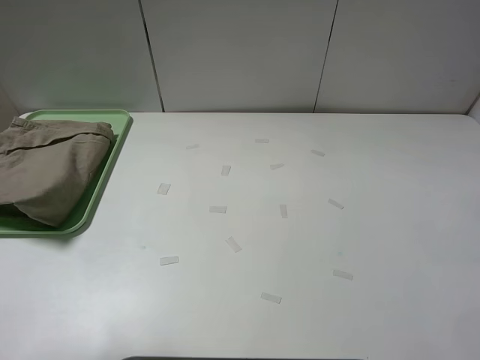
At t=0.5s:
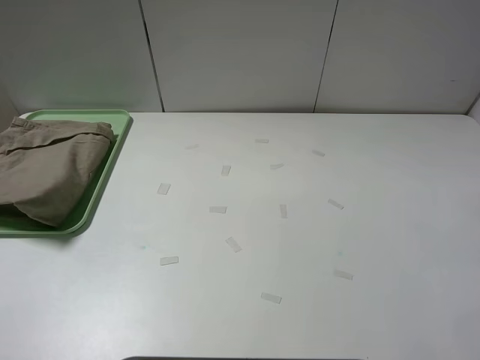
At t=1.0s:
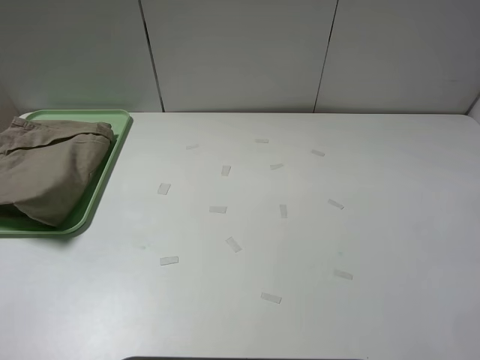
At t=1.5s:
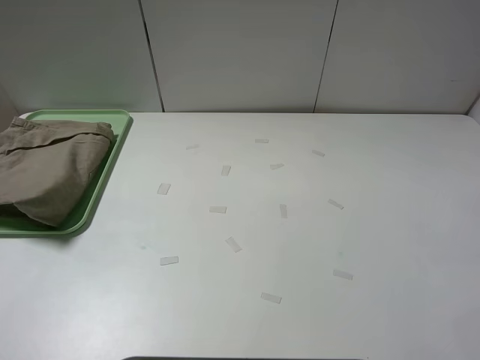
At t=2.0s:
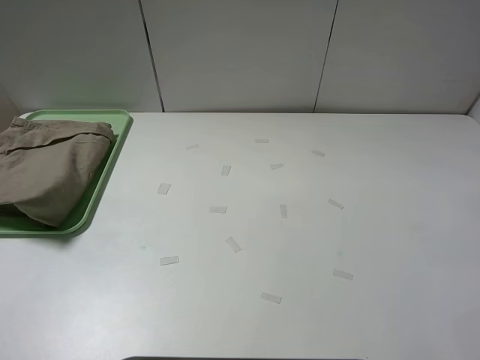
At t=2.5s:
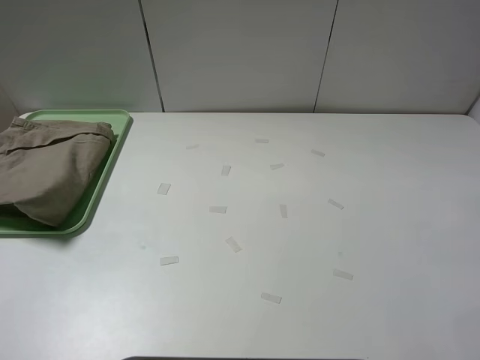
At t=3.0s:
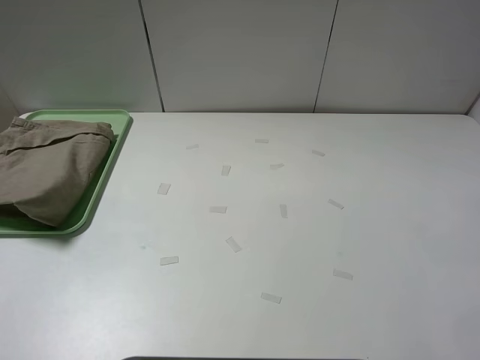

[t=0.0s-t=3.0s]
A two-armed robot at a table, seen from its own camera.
Task of the whole recording: fold the khaki jeans in half with two grippers, then fold them in half again, and use the left claw to place the folded fold khaki jeans on the tray.
t=0.0s to t=1.5s: The left gripper travels downward and backward by about 10 cm.

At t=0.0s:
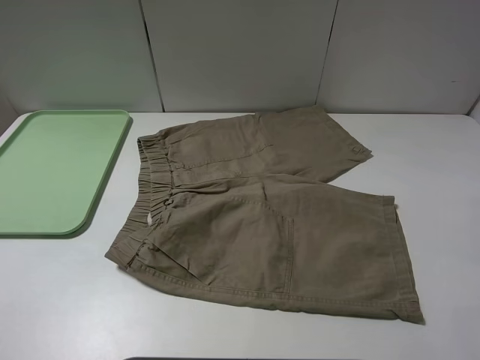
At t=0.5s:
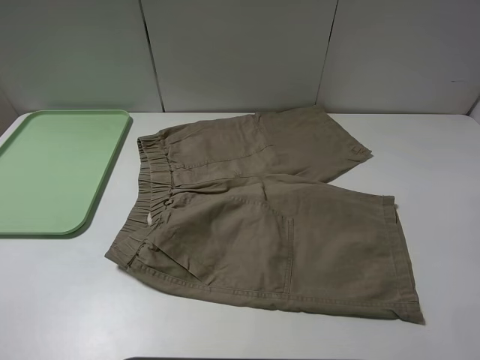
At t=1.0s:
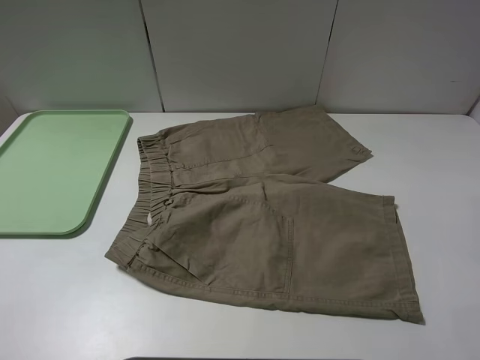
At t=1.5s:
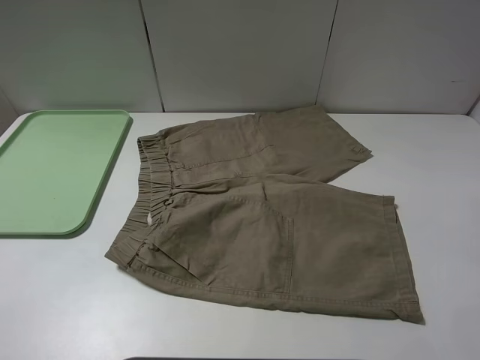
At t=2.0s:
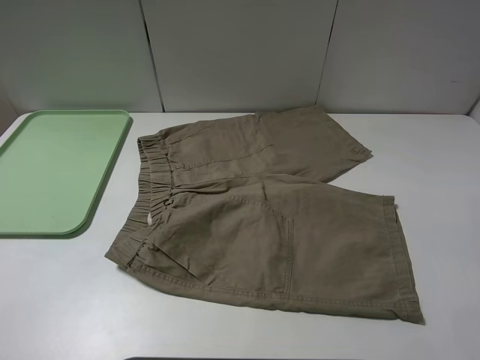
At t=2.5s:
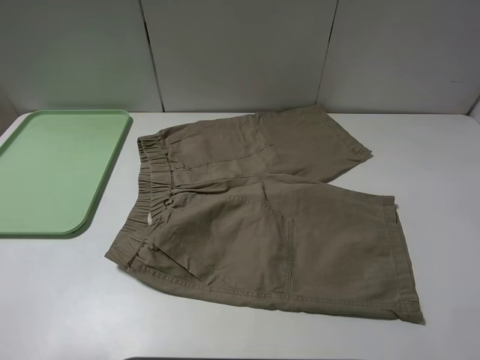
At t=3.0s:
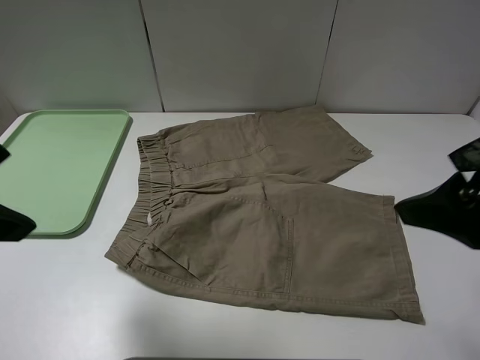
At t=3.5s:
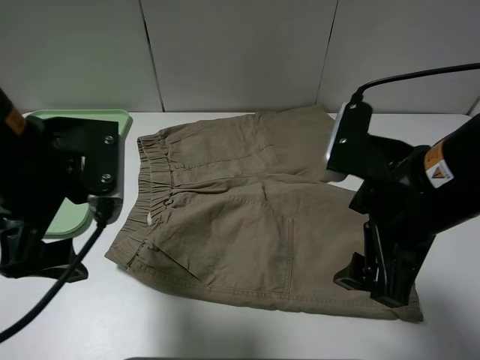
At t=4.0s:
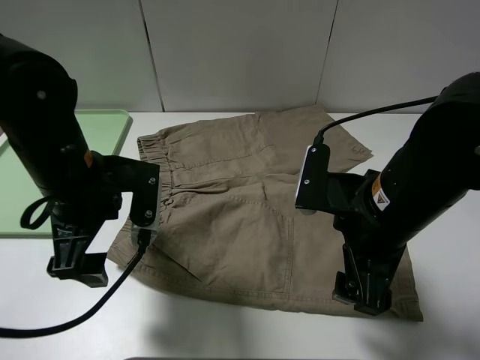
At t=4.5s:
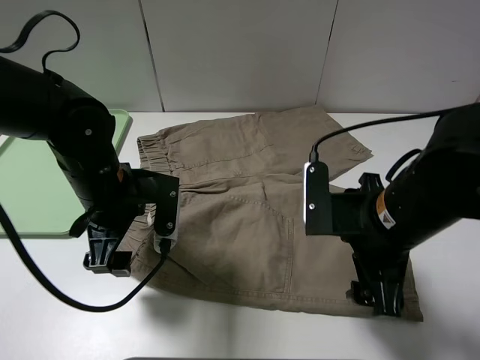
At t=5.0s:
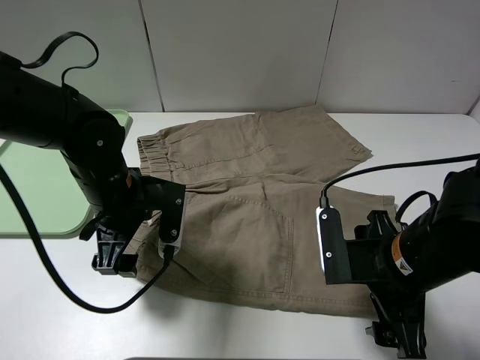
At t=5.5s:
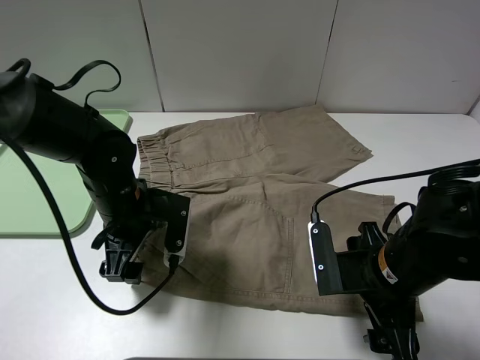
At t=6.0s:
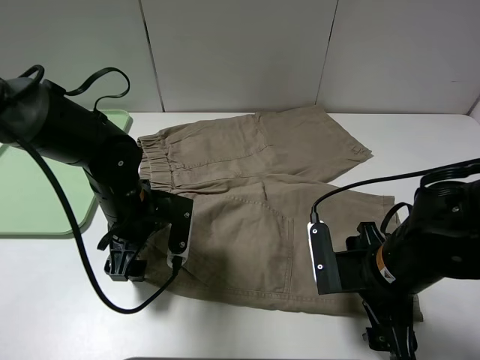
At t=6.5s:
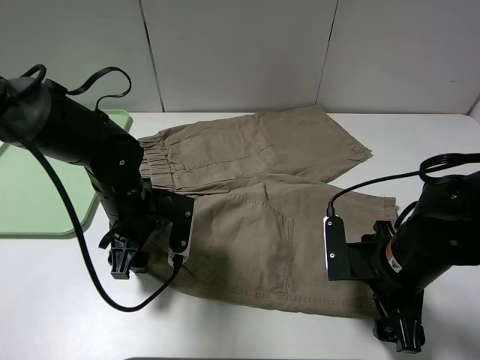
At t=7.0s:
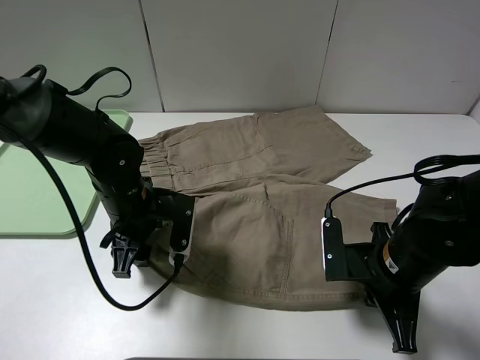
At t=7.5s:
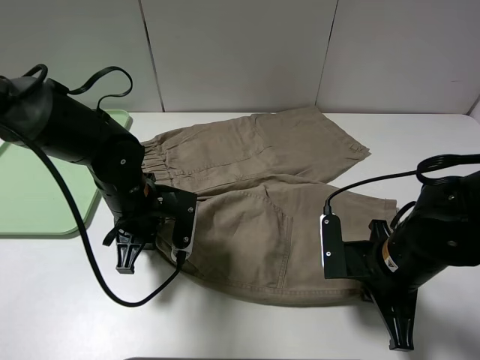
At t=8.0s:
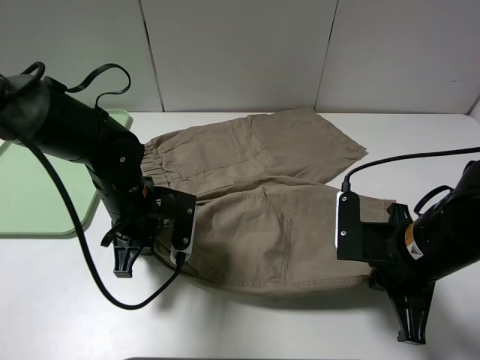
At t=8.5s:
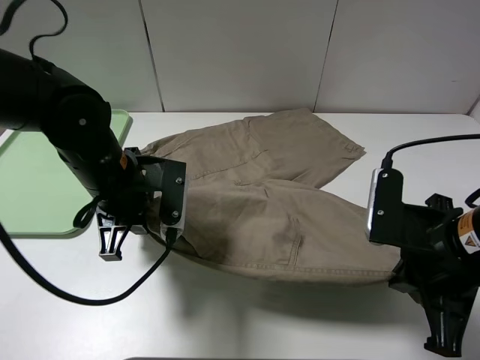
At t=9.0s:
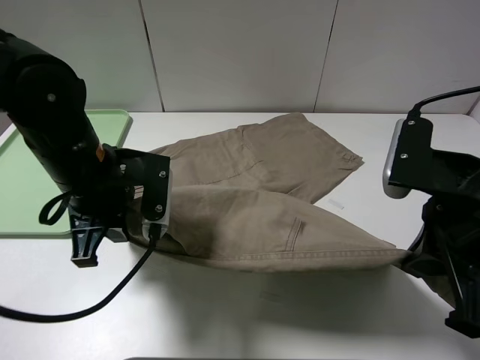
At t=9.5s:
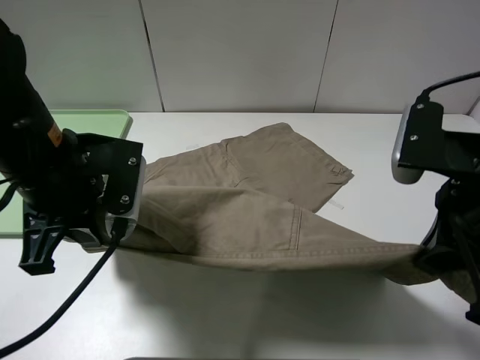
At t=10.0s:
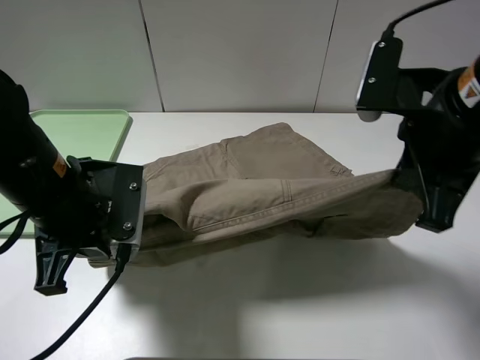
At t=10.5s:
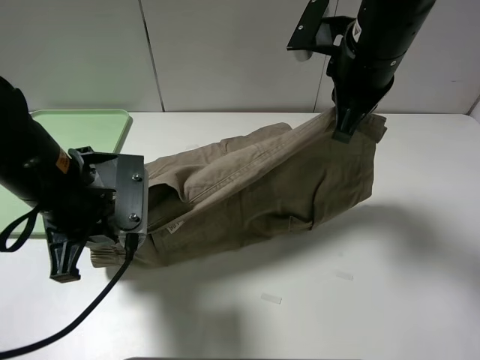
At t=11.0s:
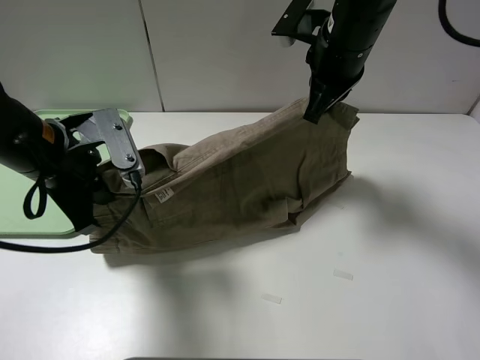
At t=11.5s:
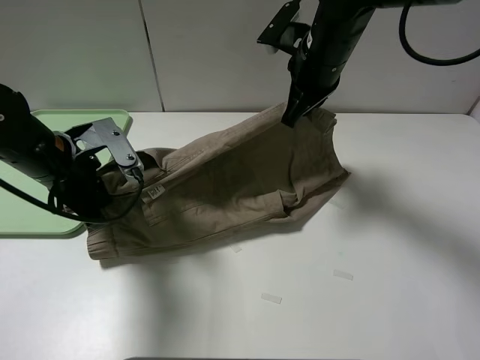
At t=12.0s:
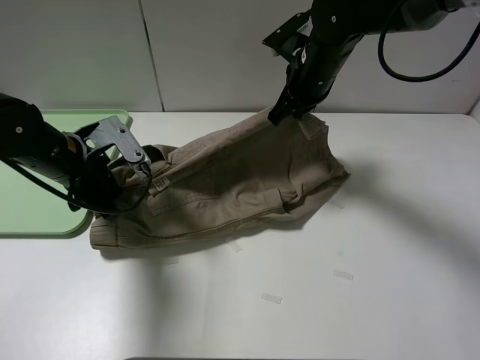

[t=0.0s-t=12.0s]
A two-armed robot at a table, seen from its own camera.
Task of the whole recording: fold the khaki jeans in half with two grippers, then fold them in half again, and use the left claw to place the folded fold khaki jeans on the tray.
Step, t=0.0s to t=7.0s: Grasp the khaki trousers with the left gripper.
t=2.0s to t=4.0s: The right gripper shifts roughly 25 cm forward, to the left and downward. Meanwhile the left gripper moves forward and to the right, roughly 25 cm.
t=4.0s to t=6.0s: Both grippers move downward, about 10 cm.
t=6.0s to t=8.0s: The right gripper closes its fingers. The left gripper closes up.
t=8.0s to t=10.0s: The left gripper goes approximately 10 cm upward and backward. Meanwhile the right gripper is displaced upward by some 15 cm.
t=10.0s to t=12.0s: The left gripper goes about 10 cm forward; the right gripper is displaced forward by some 20 cm.

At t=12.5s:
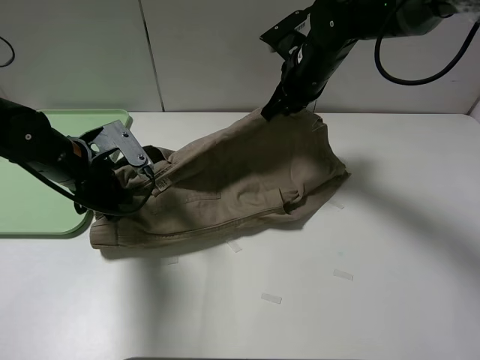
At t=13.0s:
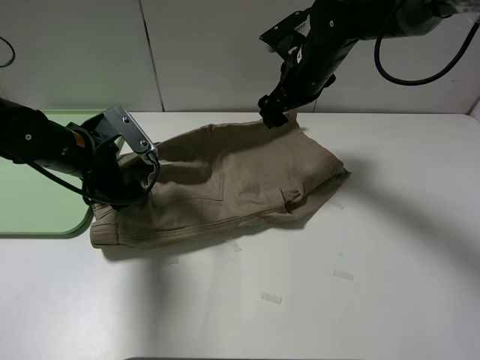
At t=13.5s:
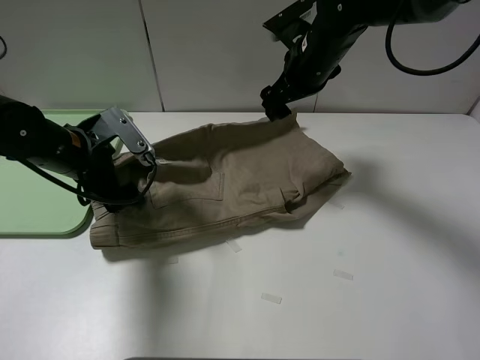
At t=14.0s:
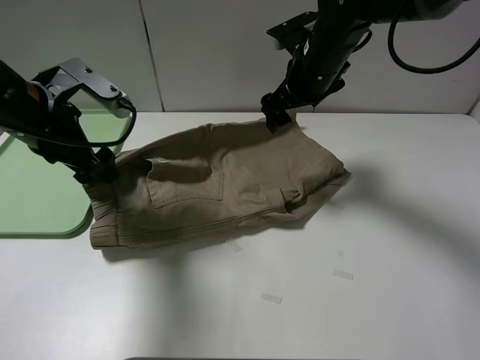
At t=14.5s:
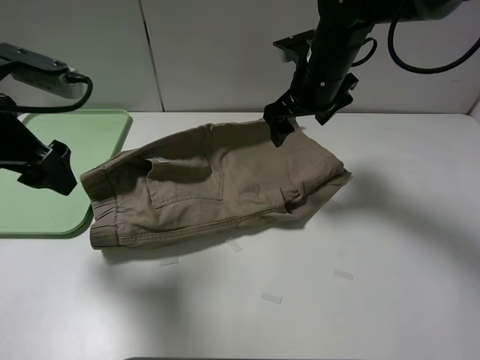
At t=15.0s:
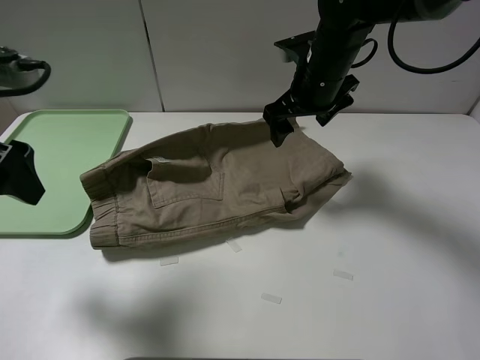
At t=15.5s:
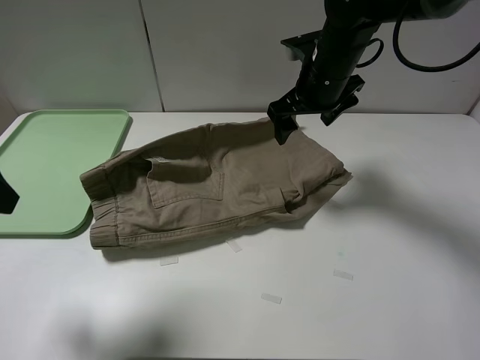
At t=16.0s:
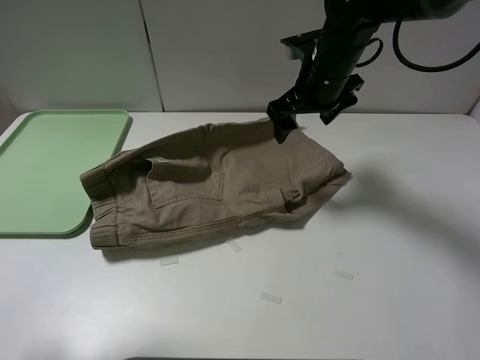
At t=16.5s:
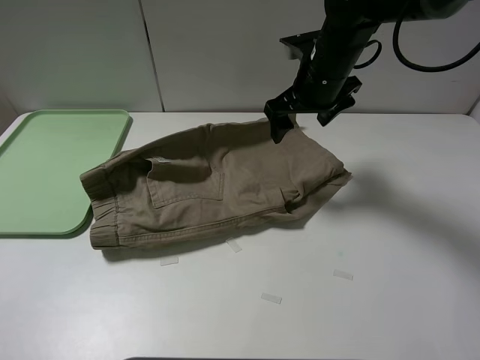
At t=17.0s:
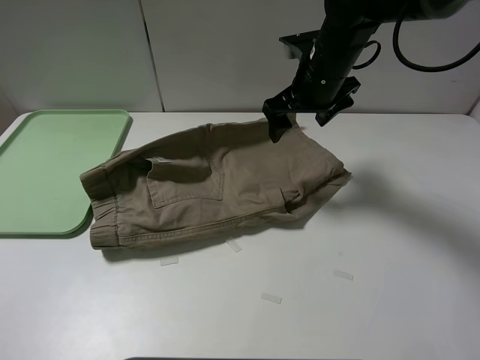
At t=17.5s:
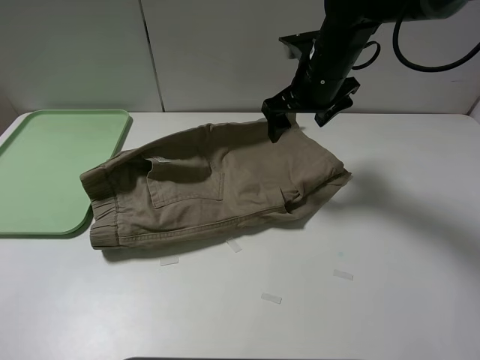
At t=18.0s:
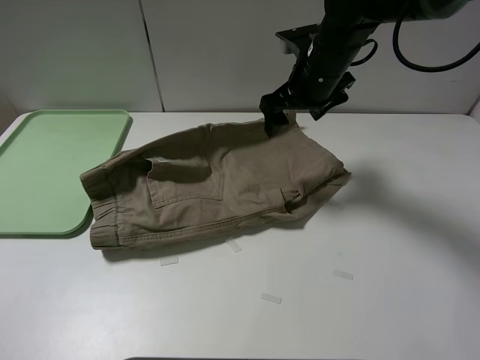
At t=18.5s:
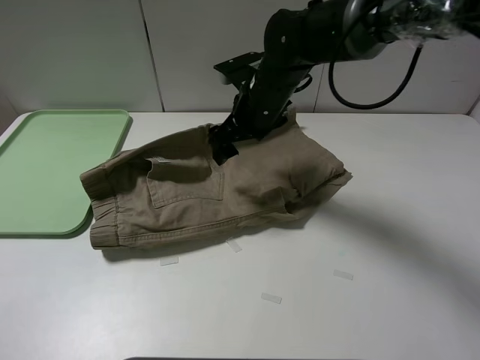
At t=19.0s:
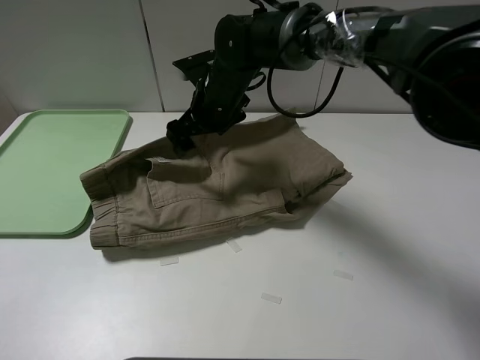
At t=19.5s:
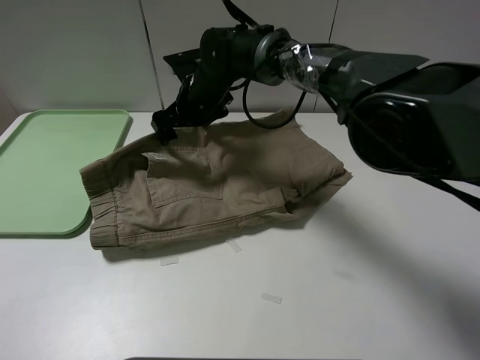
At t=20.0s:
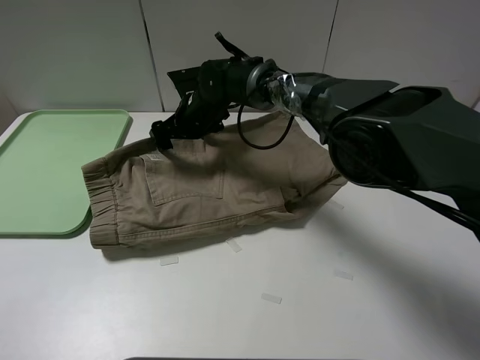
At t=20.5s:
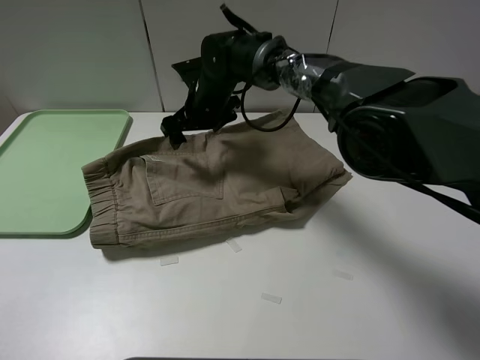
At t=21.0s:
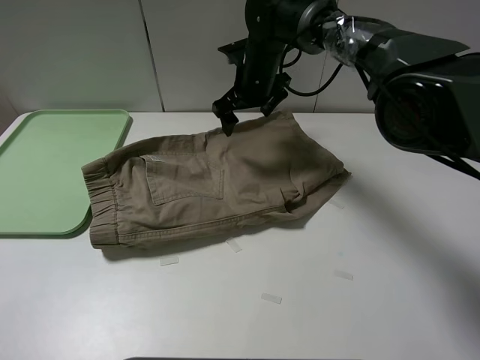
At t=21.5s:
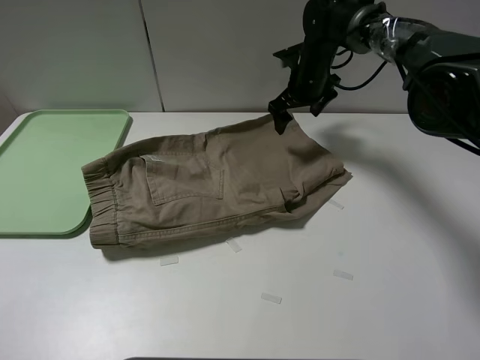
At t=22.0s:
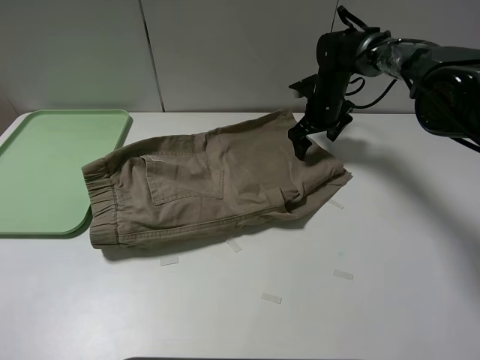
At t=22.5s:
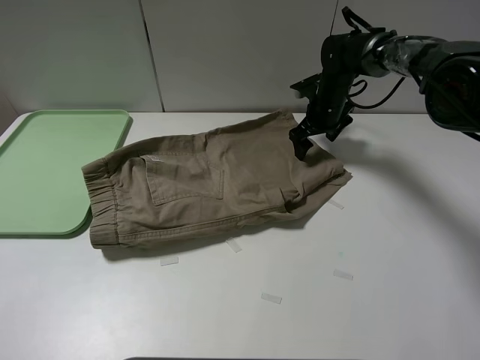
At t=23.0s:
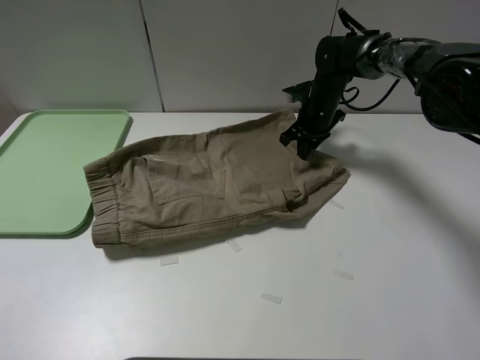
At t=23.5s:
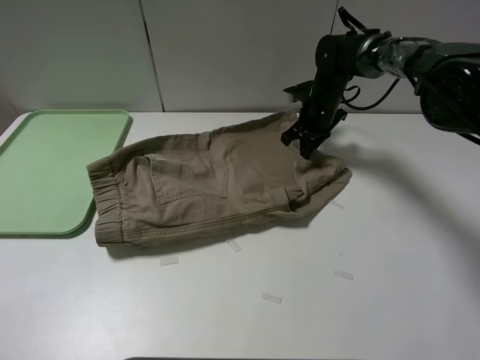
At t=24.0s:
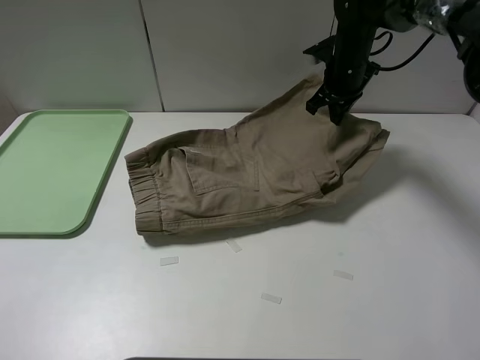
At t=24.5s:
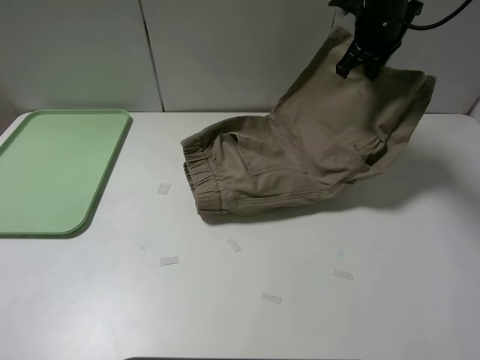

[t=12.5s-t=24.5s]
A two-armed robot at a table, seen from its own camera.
Task of the whole recording: fold the khaki jeans in half with two grippers, then fold them in half again, and use the left claw to place the folded fold khaki jeans on the tray.
Step, t=14.0s to t=23.0s: Grasp the khaki trousers with the right gripper.
t=12.5s to t=14.5s: The left gripper shifts approximately 15 cm upward and backward, and opens its fingers; the right gripper opens up.
t=14.5s to t=16.5s: The left gripper travels backward by roughly 20 cm.
t=16.5s to t=18.5s: The right gripper is displaced to the left by approximately 5 cm.
t=18.5s to t=20.5s: The right gripper shifts about 15 cm to the left, forward and downward.
t=20.5s to t=22.5s: The right gripper moves to the right, approximately 20 cm.
t=22.5s to t=24.5s: The right gripper travels upward by about 15 cm, and closes up.
